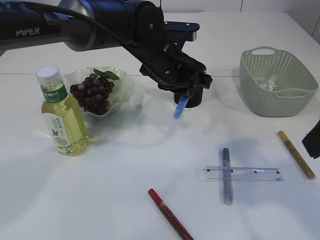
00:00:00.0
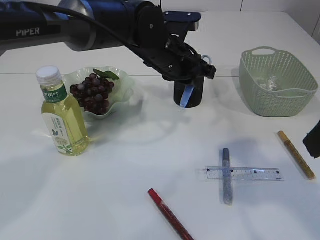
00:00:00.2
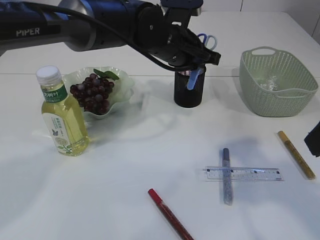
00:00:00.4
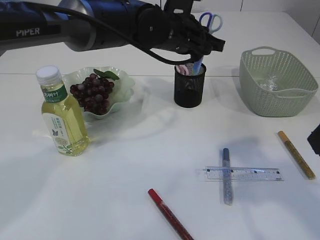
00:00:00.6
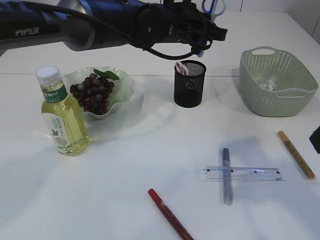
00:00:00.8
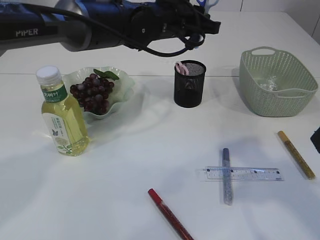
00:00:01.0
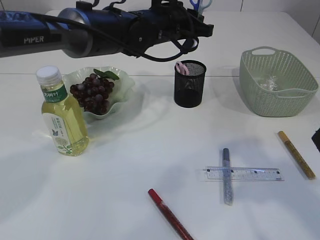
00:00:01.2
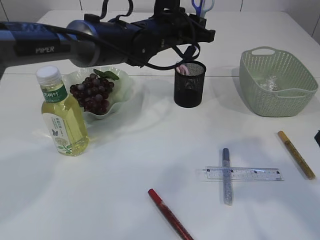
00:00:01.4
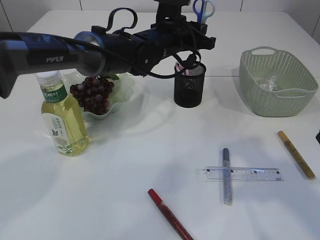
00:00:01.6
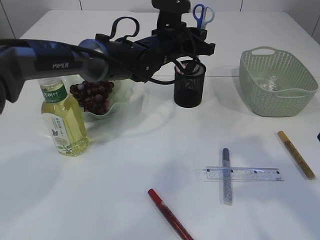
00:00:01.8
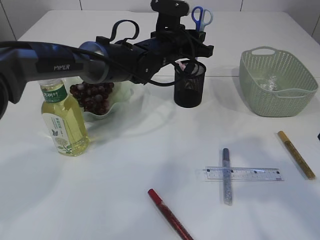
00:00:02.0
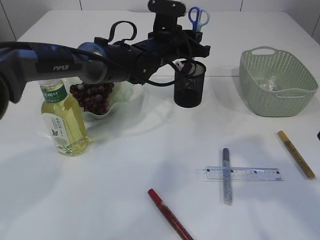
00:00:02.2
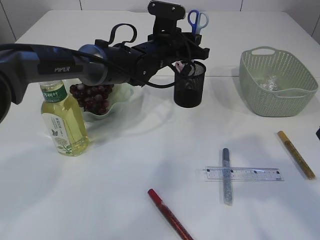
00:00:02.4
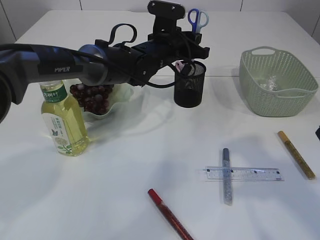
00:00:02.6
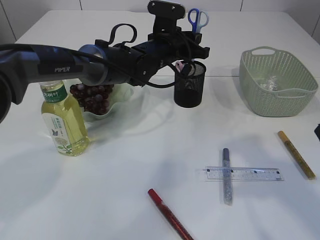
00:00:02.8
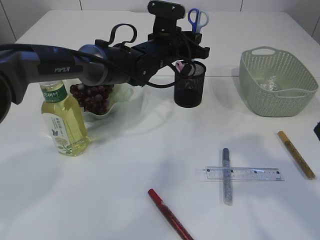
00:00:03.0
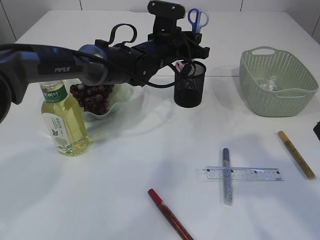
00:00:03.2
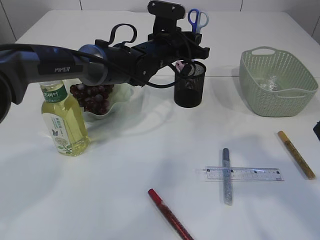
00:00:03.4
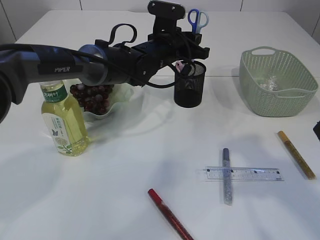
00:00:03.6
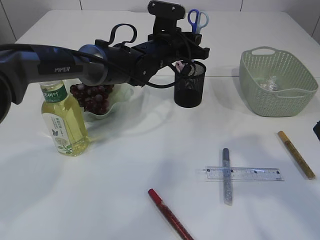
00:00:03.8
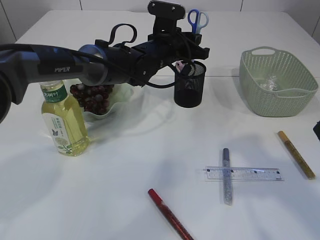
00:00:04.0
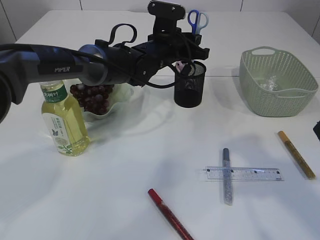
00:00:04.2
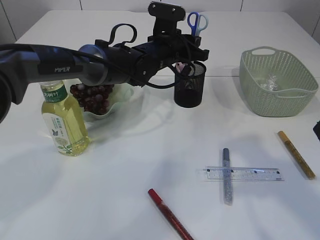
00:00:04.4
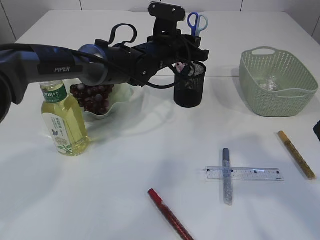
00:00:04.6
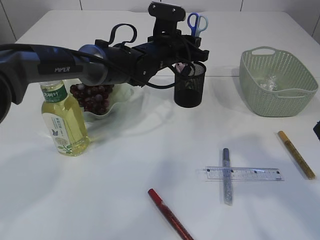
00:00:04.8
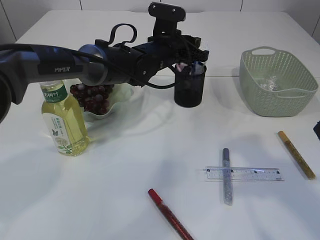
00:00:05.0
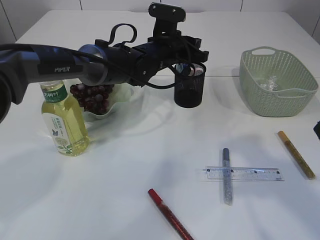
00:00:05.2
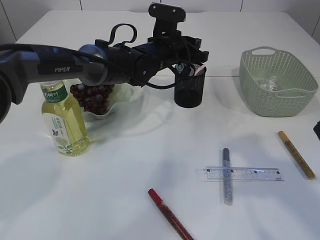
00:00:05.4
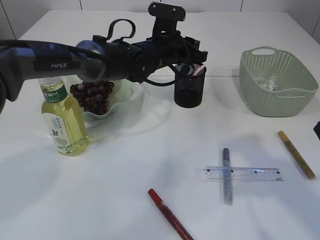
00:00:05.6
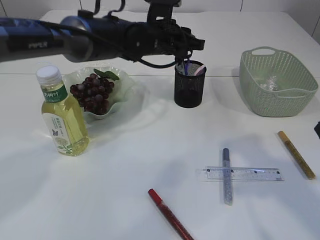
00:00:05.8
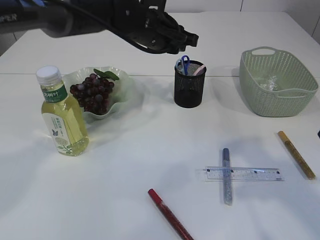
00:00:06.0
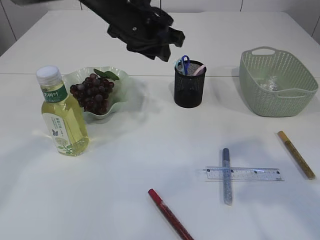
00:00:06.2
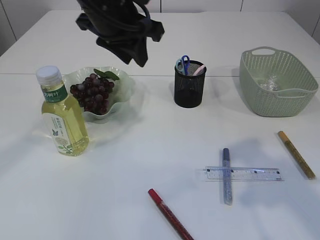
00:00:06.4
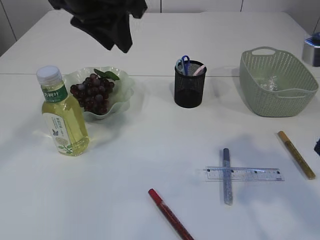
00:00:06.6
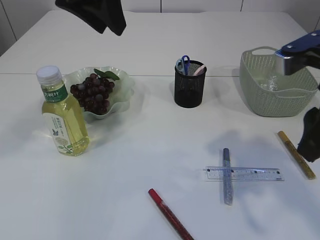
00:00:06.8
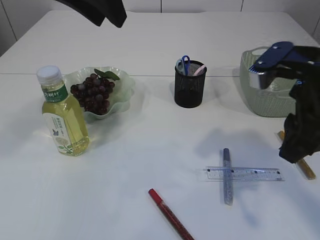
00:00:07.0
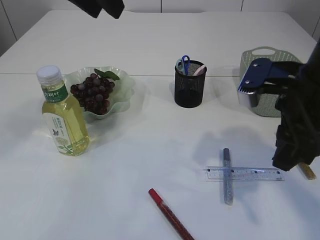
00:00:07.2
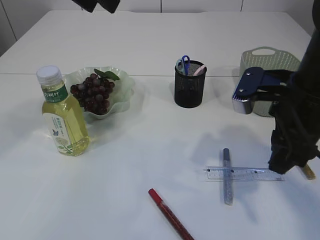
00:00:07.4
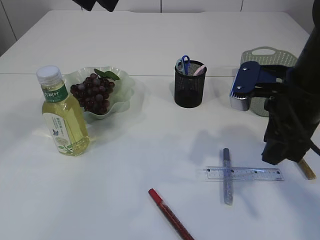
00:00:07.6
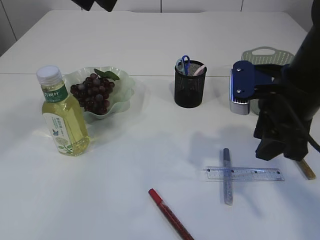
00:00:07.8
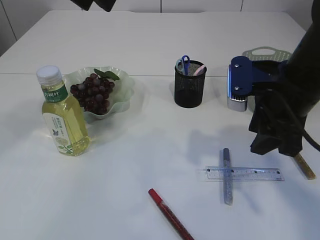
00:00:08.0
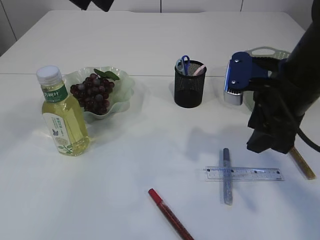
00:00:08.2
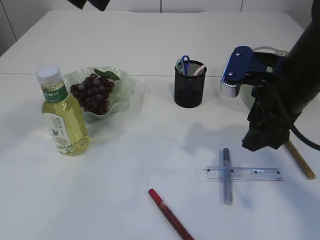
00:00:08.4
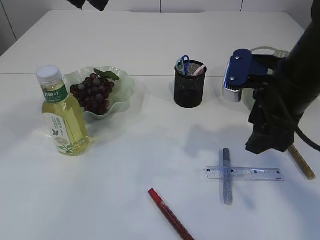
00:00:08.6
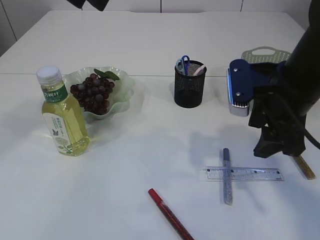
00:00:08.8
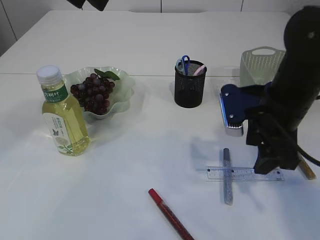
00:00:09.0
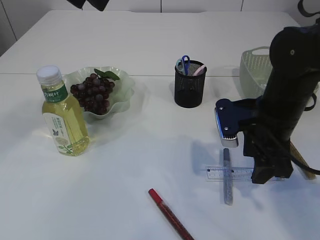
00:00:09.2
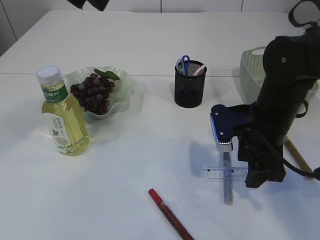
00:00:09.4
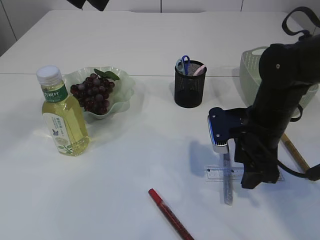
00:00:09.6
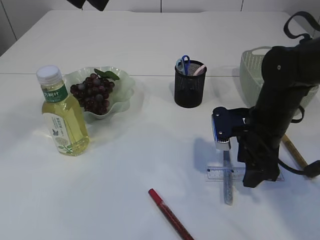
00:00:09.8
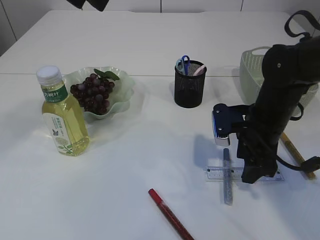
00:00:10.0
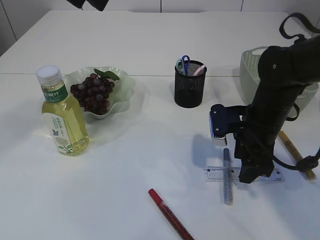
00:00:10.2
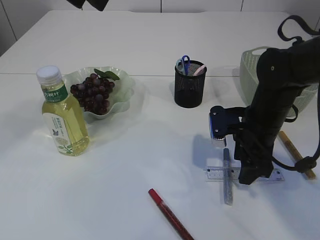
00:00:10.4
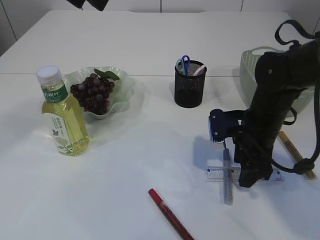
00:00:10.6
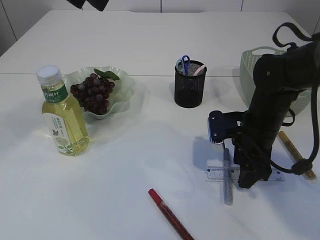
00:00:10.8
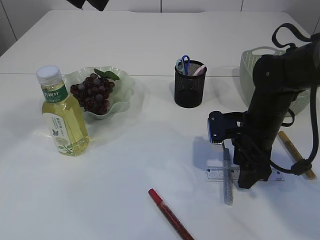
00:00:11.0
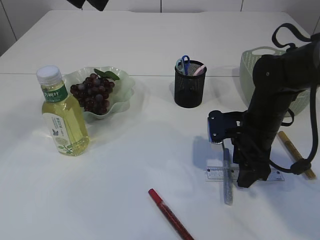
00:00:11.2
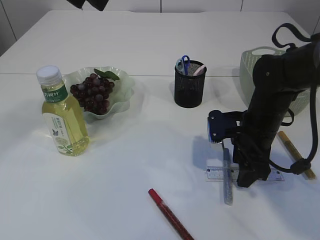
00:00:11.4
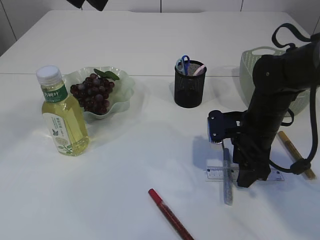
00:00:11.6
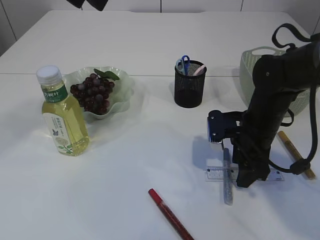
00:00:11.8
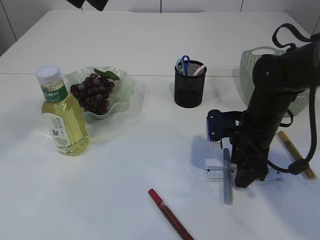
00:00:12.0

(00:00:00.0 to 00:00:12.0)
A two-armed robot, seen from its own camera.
Step, 00:00:00.0 - 00:00:05.6: Place the blue scissors into the pen holder.
00:00:00.0 - 00:00:01.6: The left gripper shifts approximately 5 cm forward.
00:00:01.6 - 00:00:03.0: There are only small adjustments of the grippers.
00:00:03.0 - 00:00:04.4: Neither gripper changes place.
00:00:04.4 - 00:00:06.0: The left gripper moves upward, roughly 5 cm.
00:00:06.0 - 00:00:07.6: The right gripper shifts approximately 10 cm forward and downward, while the left gripper goes about 25 cm upward, backward and to the left.
00:00:07.6 - 00:00:09.0: The grippers move only a little.
00:00:09.0 - 00:00:10.4: The right gripper shifts about 10 cm downward.
00:00:10.4 - 00:00:12.0: Both grippers stay about where they are.

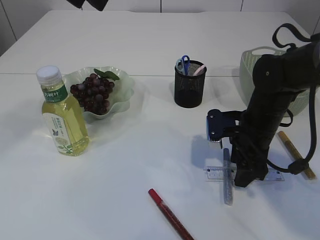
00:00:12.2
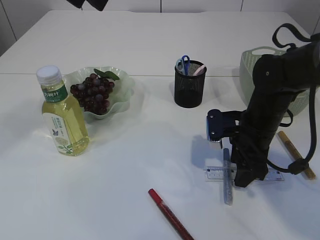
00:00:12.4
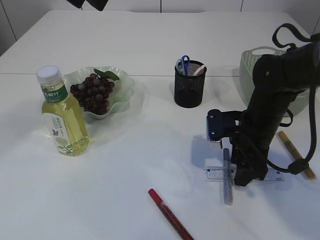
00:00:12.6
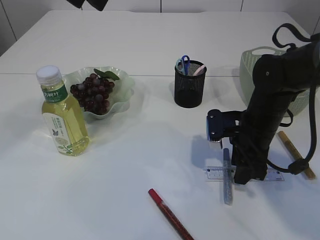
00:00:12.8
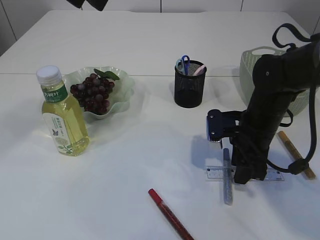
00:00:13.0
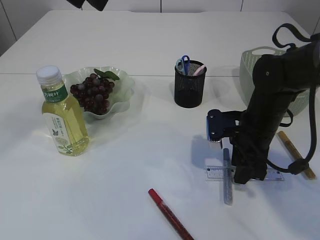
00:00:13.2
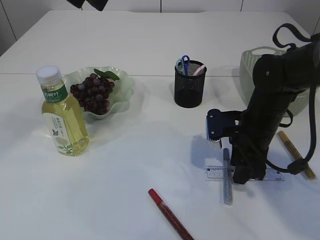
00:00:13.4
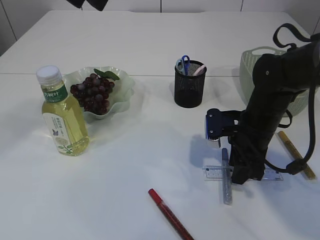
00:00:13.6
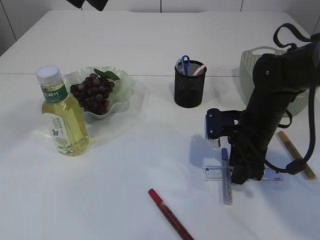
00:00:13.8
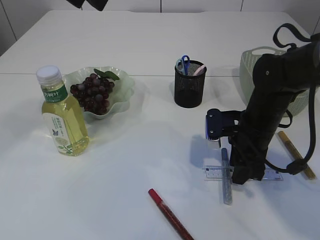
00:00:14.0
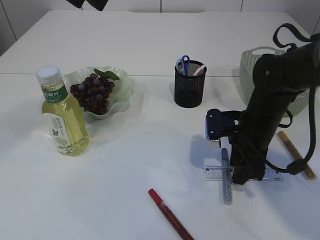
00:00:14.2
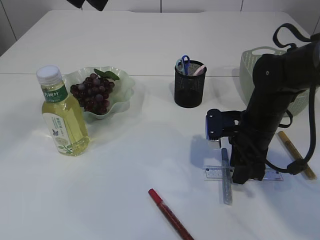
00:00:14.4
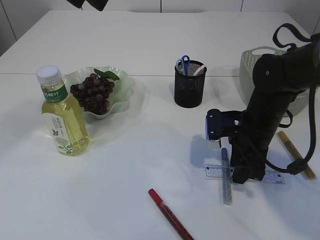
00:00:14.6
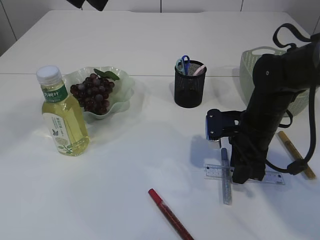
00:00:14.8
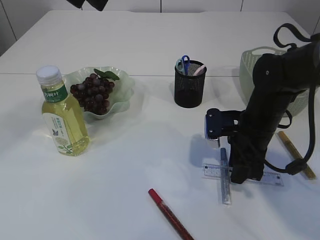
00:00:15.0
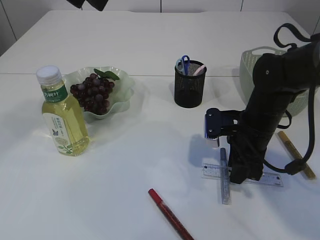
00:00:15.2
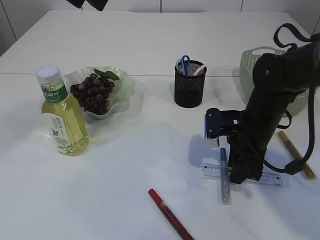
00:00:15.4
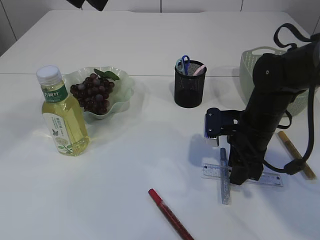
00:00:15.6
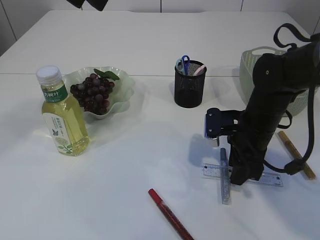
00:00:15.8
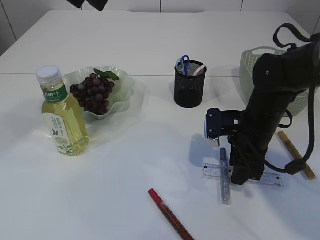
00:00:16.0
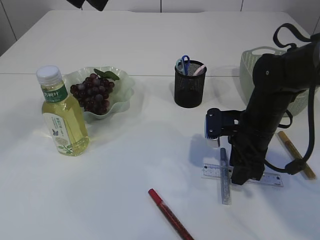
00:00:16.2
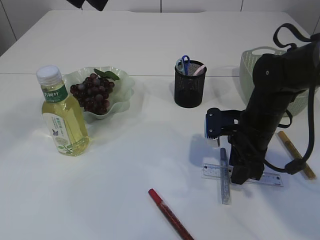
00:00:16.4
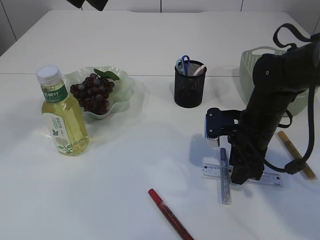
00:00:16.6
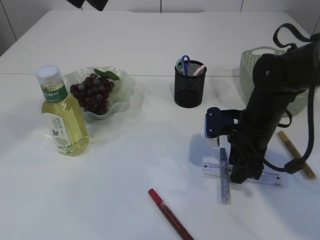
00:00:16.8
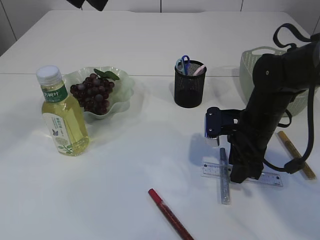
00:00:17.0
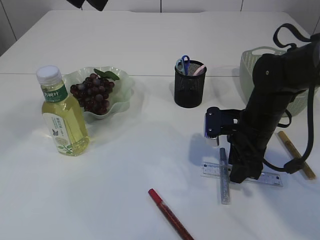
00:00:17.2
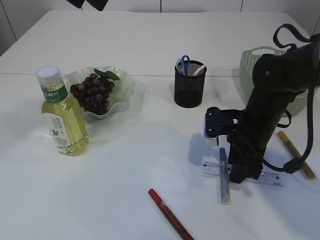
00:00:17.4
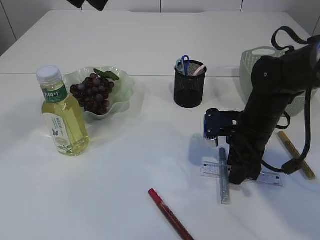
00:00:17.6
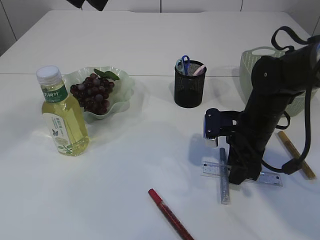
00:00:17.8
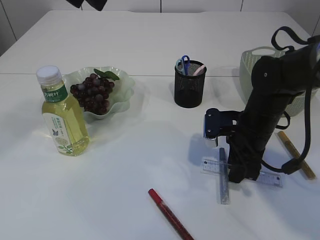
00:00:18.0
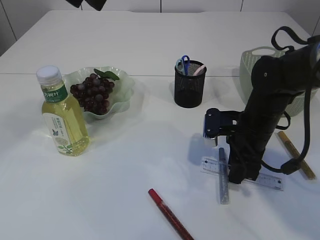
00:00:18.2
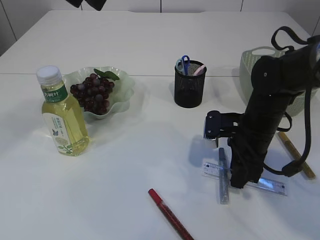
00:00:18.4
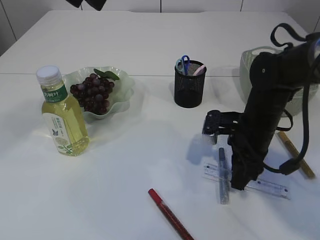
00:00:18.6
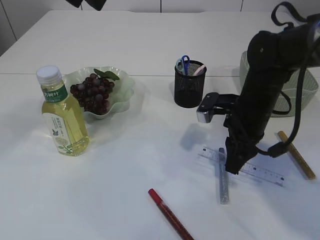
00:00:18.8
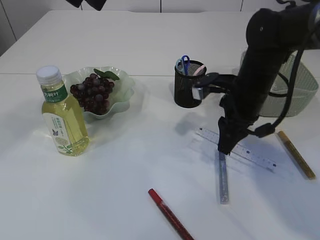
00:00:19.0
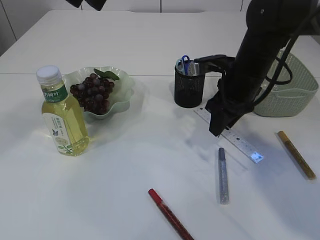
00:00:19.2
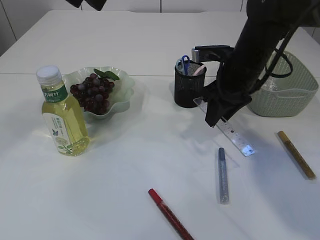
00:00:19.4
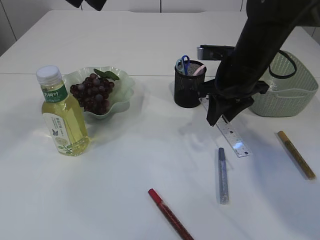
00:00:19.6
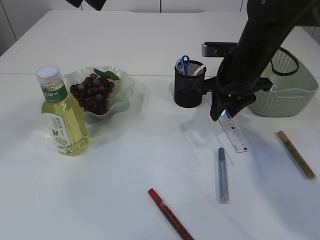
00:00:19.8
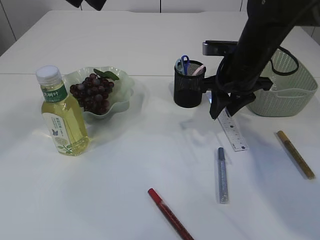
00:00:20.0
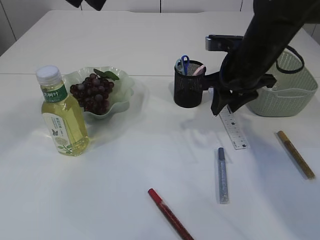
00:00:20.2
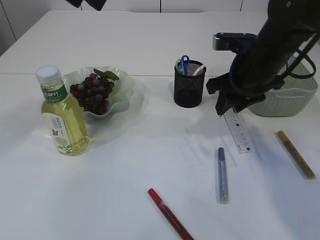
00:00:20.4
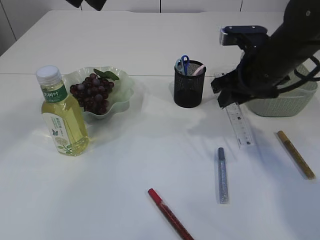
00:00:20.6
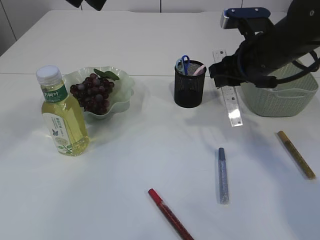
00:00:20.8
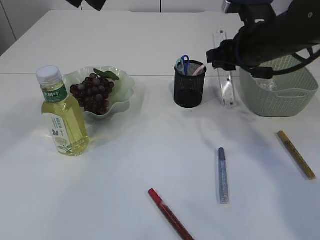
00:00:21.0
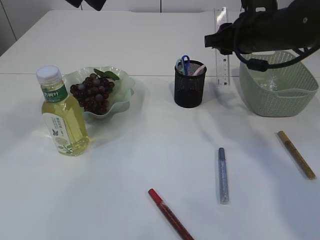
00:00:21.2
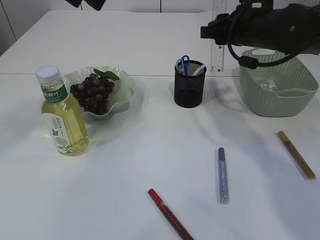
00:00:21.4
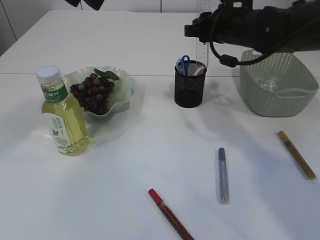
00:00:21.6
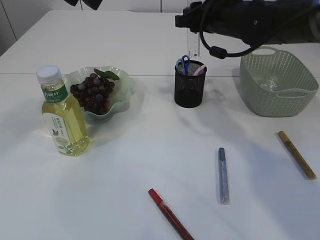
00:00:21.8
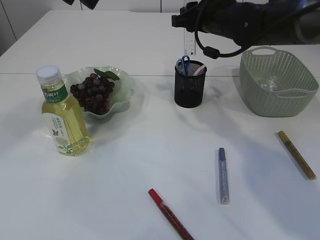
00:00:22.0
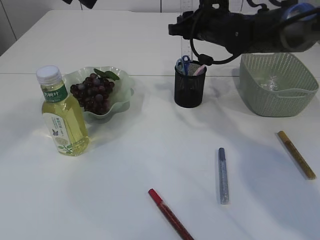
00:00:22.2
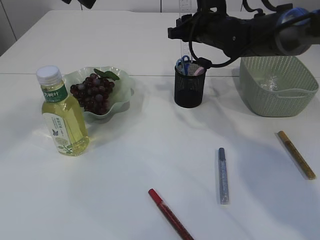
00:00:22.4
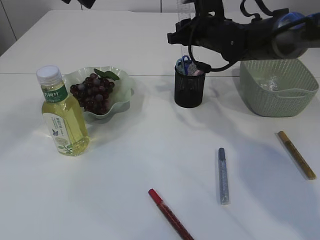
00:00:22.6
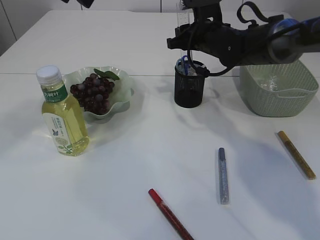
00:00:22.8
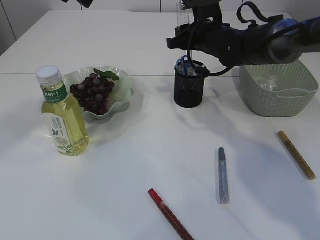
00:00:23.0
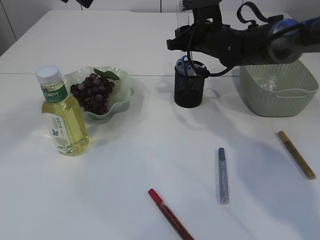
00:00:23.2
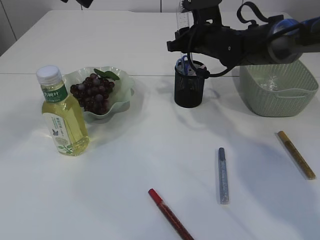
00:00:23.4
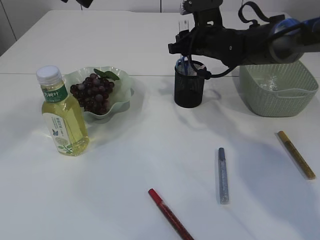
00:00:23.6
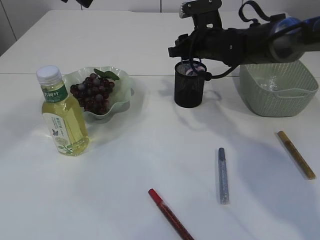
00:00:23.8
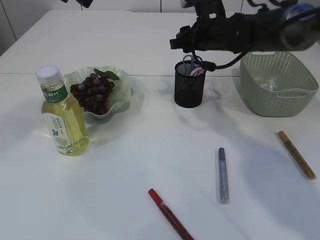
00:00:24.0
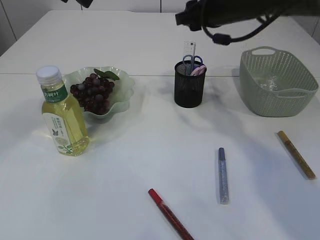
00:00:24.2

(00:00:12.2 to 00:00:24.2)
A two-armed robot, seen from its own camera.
Step, 00:00:12.2 - 00:00:19.0: pick up the ruler.
Step, 00:00:19.2 - 00:00:24.0: Place the ruler into the pen holder.
00:00:12.2 - 00:00:18.2: Both grippers stay about where they are.
00:00:18.2 - 00:00:19.8: The right gripper is displaced upward and forward by about 10 cm.
00:00:21.2 - 00:00:22.6: The right gripper goes about 10 cm forward and to the left.
00:00:22.6 - 00:00:24.2: The right gripper heads upward, covering roughly 5 cm.
